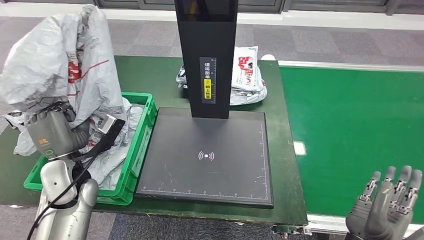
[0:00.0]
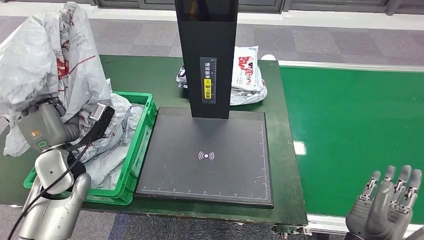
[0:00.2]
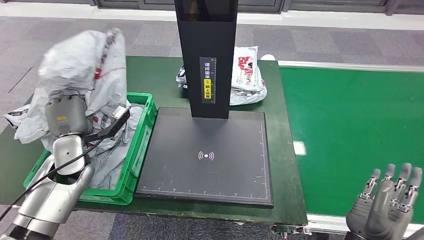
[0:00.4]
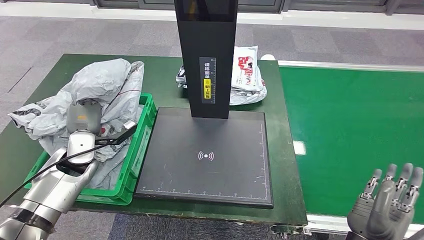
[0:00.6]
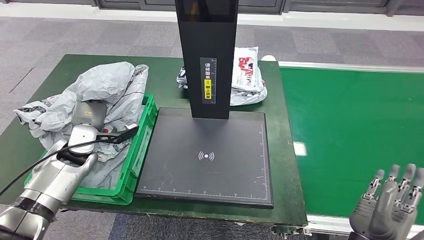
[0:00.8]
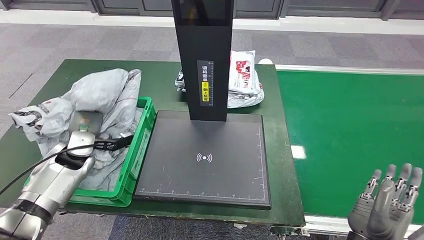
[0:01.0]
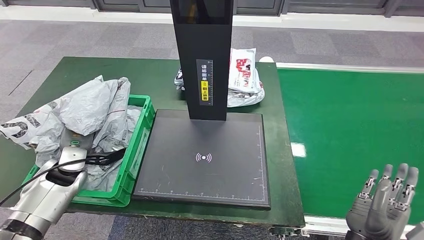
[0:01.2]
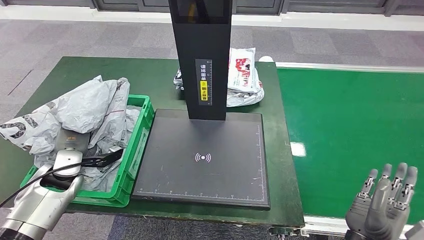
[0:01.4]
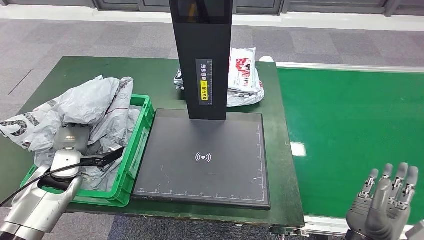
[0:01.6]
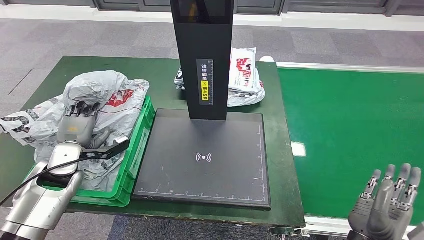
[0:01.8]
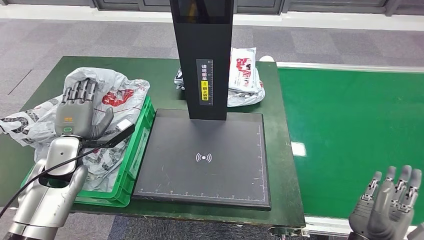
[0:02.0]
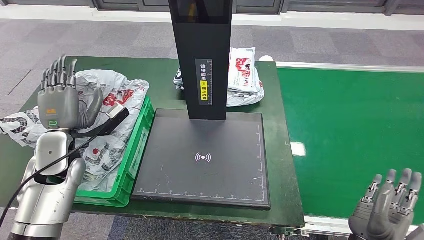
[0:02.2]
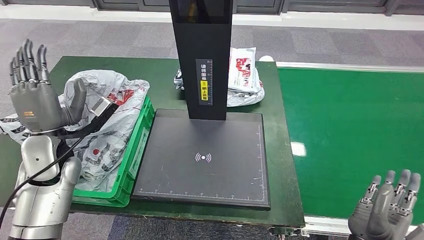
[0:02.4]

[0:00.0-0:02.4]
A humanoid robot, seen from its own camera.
Step, 0:00.0 to 0:02.4: Place the parcel into the delivery box.
0:01.2 to 0:02.4: The left hand heads upward, covering roughly 10 cm.
